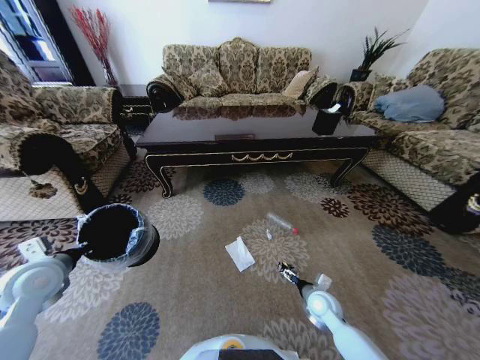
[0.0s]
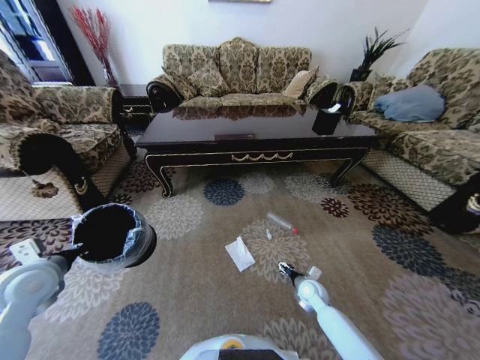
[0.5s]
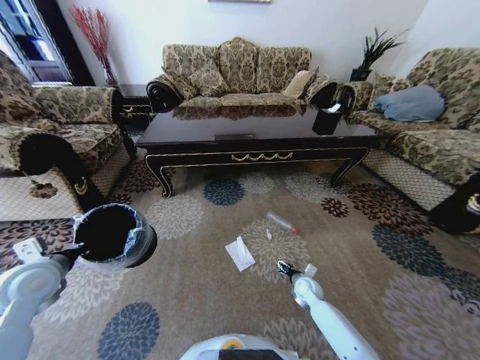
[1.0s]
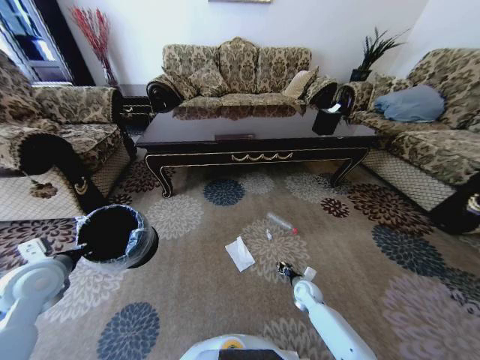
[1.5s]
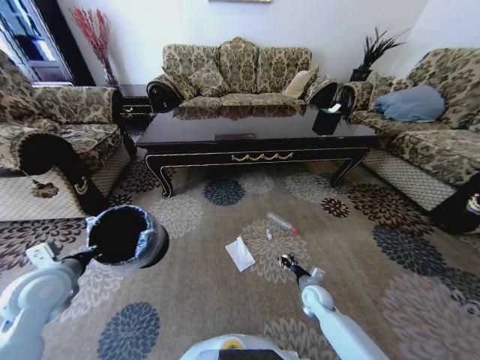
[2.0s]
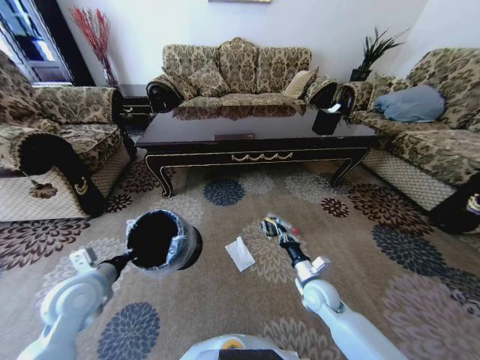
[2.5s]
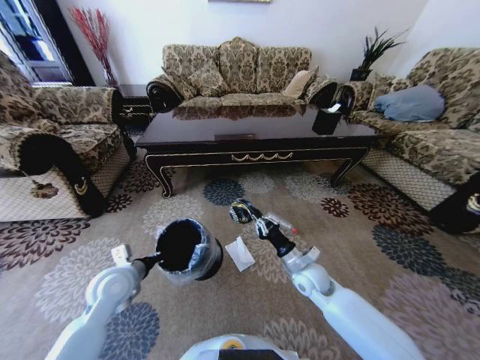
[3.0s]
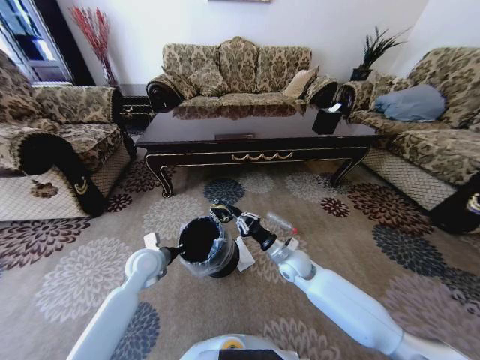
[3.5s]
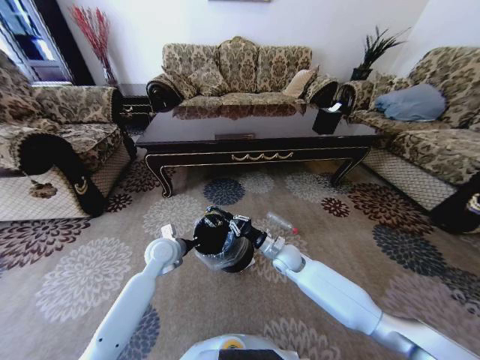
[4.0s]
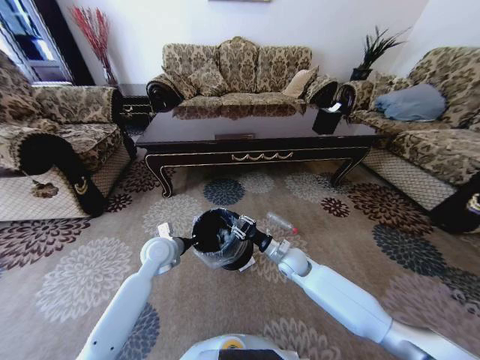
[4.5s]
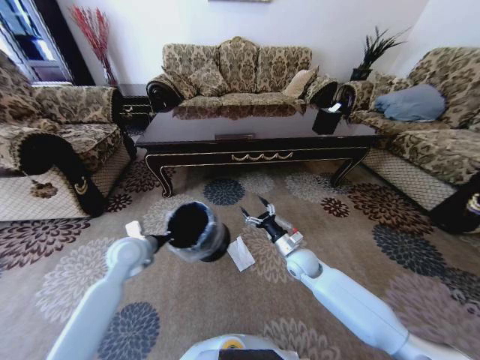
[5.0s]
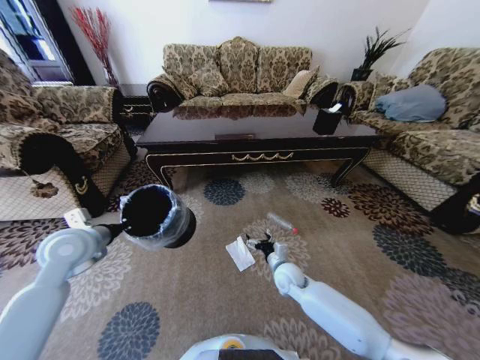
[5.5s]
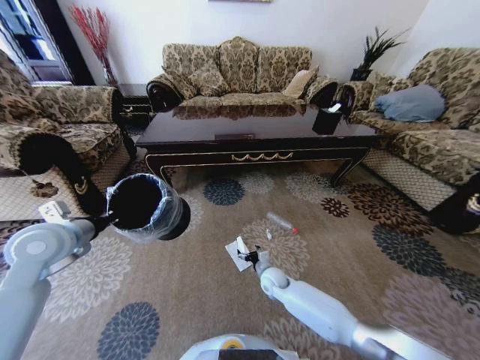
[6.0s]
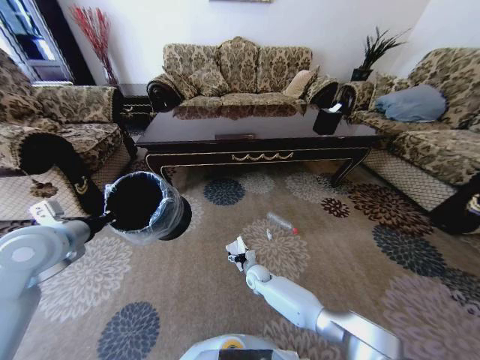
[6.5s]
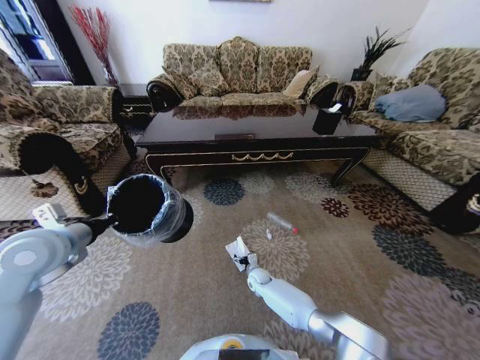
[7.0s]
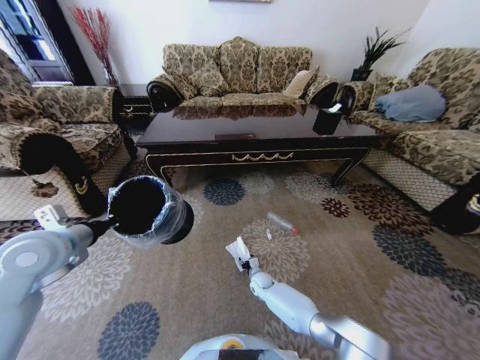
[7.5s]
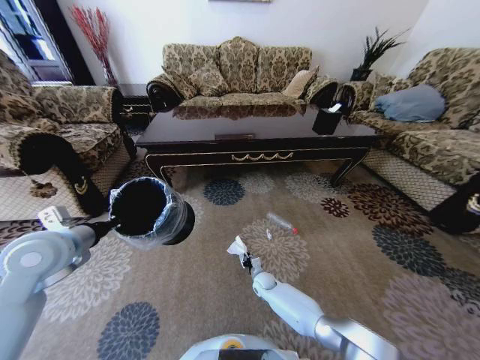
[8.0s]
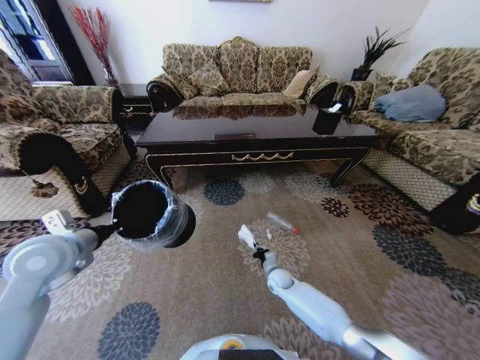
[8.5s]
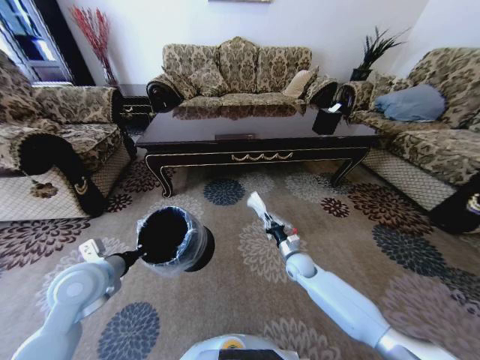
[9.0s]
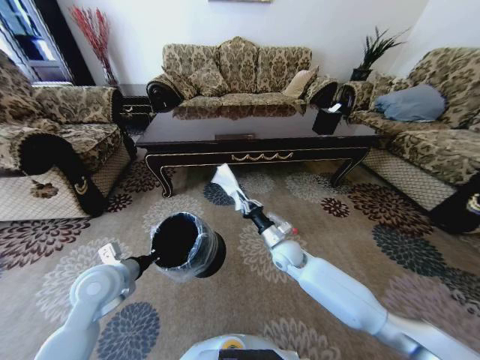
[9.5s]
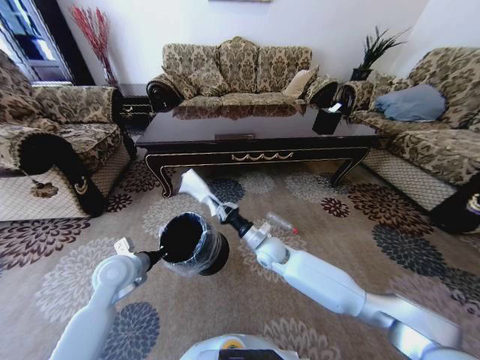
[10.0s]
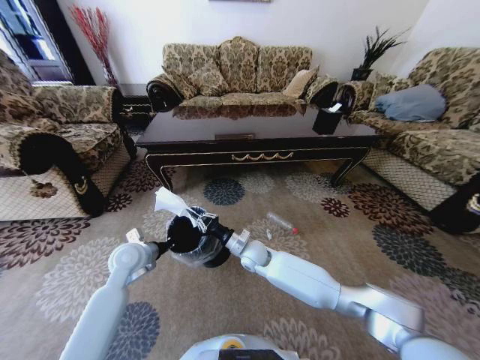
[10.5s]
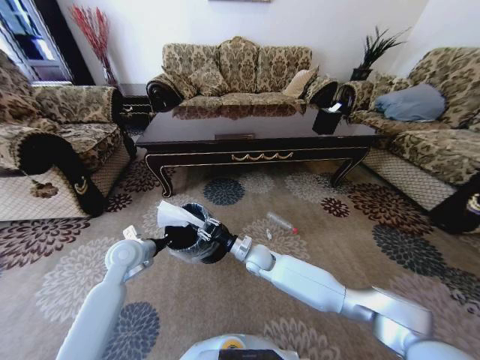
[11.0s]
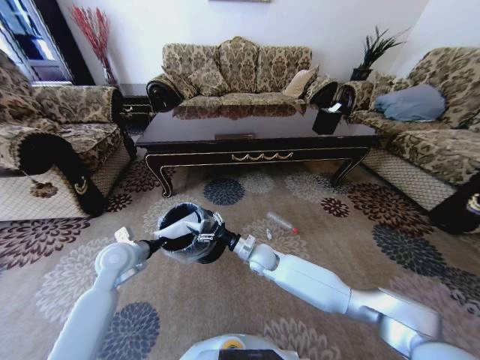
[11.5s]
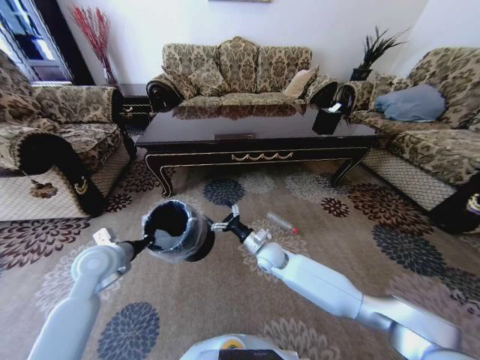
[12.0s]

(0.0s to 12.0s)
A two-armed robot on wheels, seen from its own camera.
Task of the whole recording: Move to the front of the table and pick up the trash from the floor, then place it into the trash bin.
0.0s - 2.0s: The right gripper travels downward by about 5 cm, and closes.
2.0s - 4.0s: The right gripper goes roughly 20 cm upward, to the left and forward; the left gripper travels to the right, forward and downward by some 25 cm.
4.0s - 6.0s: The right gripper goes approximately 10 cm downward, and opens its fingers. Meanwhile the left gripper heads to the left, upward and backward, covering roughly 25 cm.
6.0s - 8.0s: The right gripper moves downward, about 10 cm, and closes up.
8.0s - 10.0s: The right gripper moves upward, some 25 cm, while the left gripper heads downward and to the right, covering roughly 15 cm.
10.0s - 12.0s: The left gripper changes place by roughly 5 cm; the right gripper opens up.

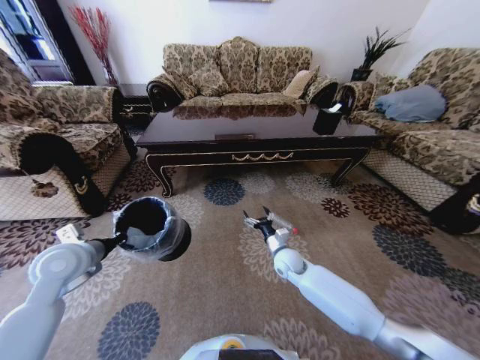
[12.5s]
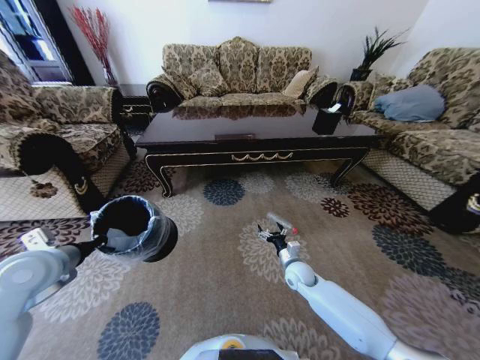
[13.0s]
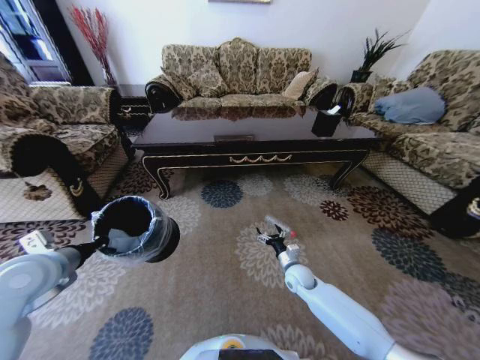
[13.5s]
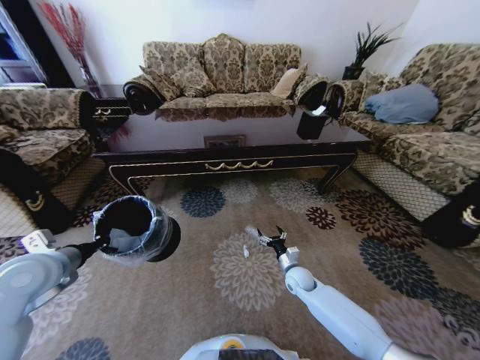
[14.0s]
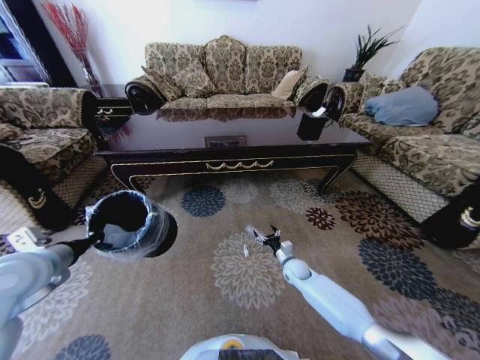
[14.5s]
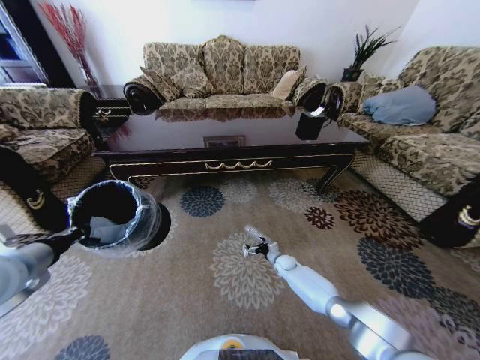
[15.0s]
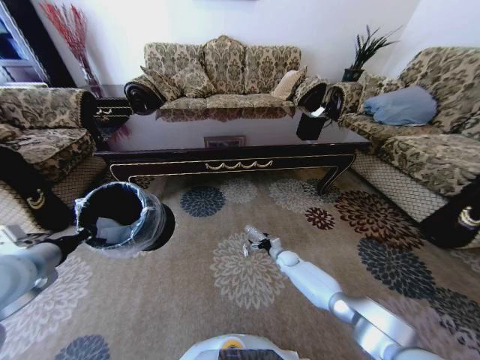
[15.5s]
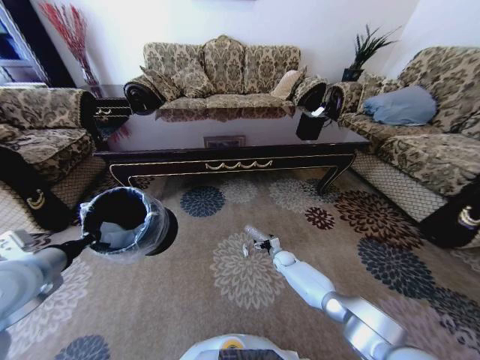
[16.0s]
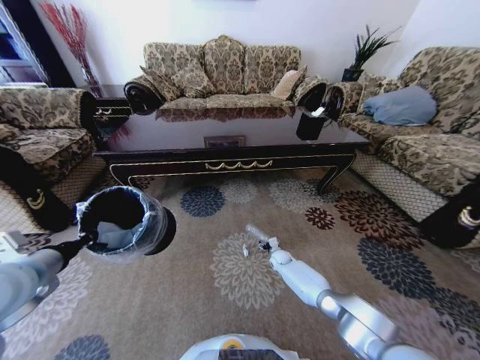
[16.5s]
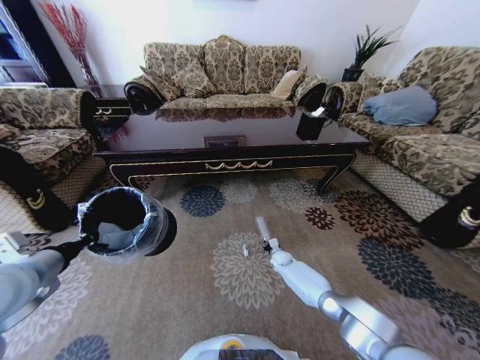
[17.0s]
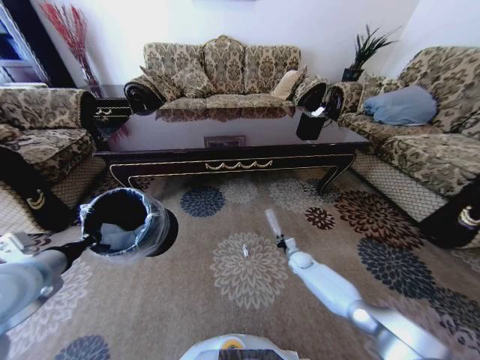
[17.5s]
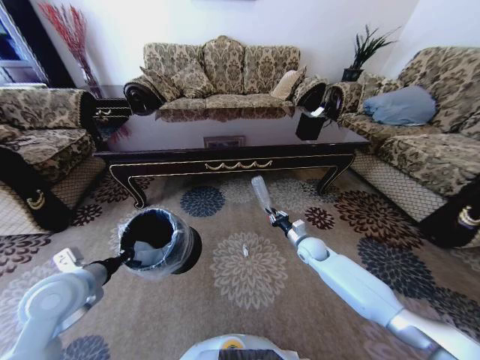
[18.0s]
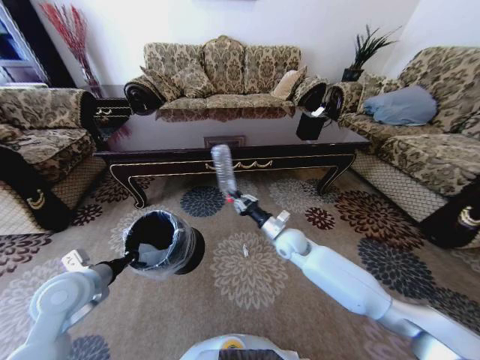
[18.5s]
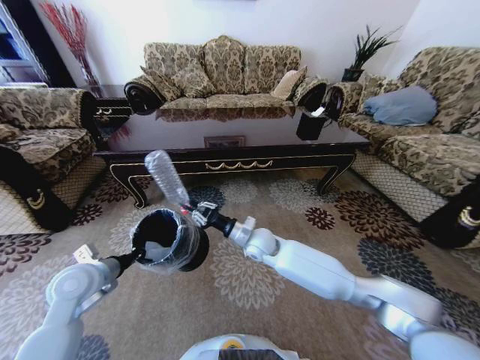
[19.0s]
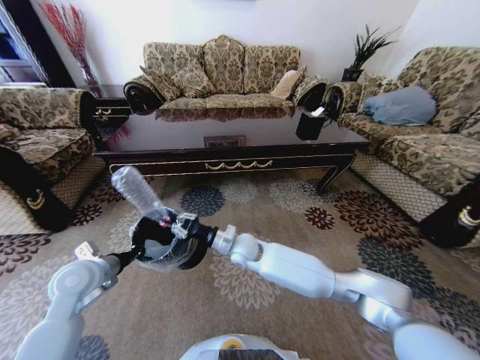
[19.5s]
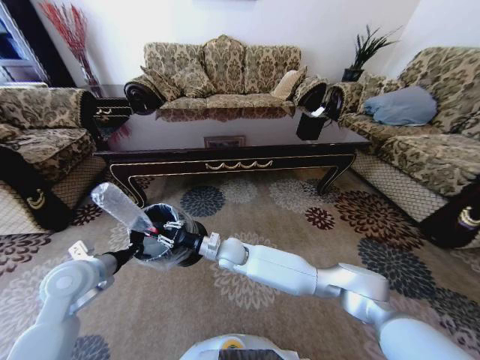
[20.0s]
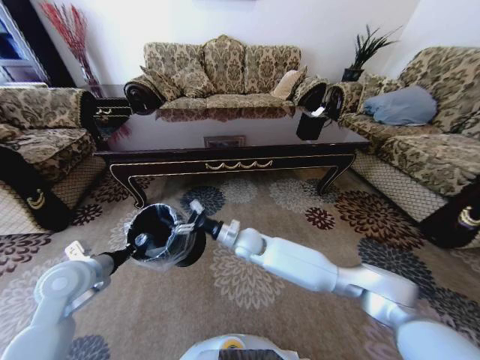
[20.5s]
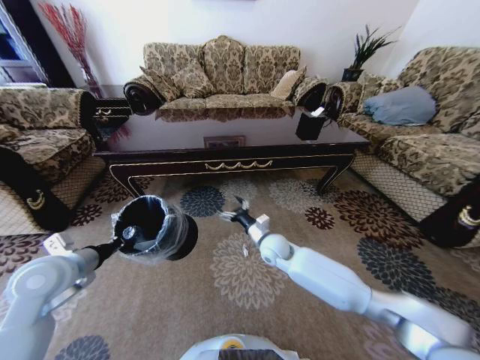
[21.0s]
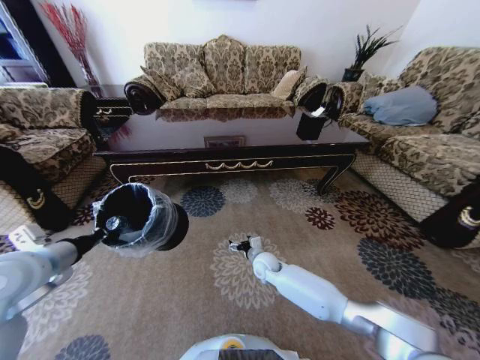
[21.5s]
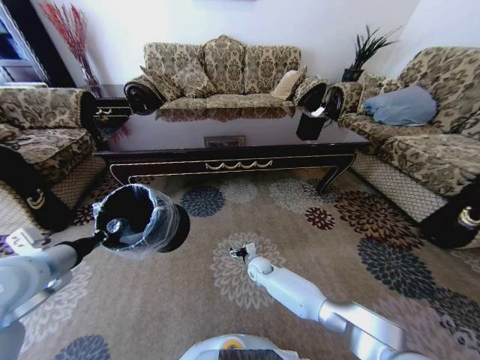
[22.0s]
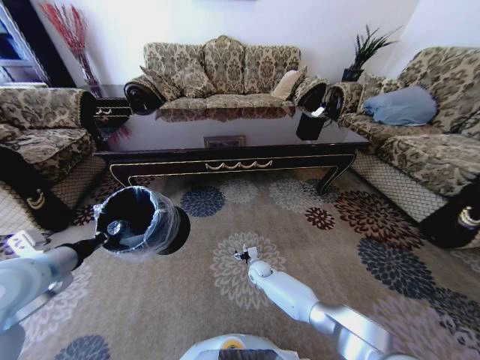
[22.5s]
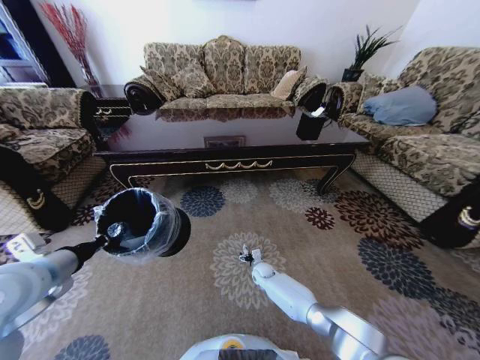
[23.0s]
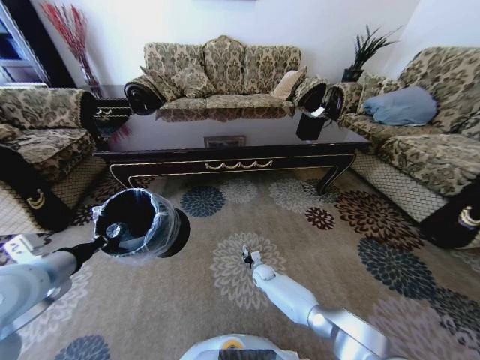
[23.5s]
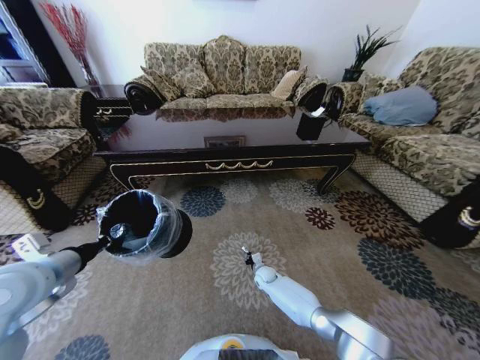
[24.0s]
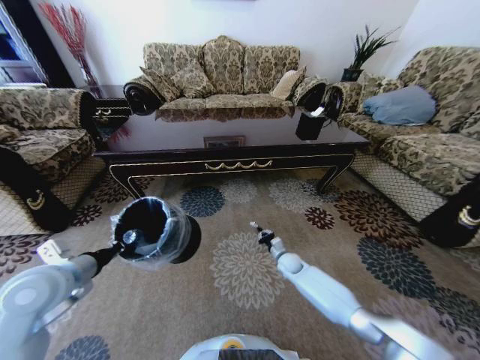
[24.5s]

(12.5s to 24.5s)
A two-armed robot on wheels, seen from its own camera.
Task of the whole recording: Move to the front of the table and pick up the trash from the floor, then place it into the trash bin.
12.5s - 14.5s: The right gripper heads downward and to the right, covering approximately 10 cm, while the left gripper shifts by about 5 cm.
14.5s - 16.5s: The right gripper moves forward and downward, approximately 10 cm.
16.5s - 18.5s: The left gripper goes about 10 cm downward; the right gripper moves upward, about 25 cm, and closes its fingers.
18.5s - 20.5s: The right gripper is displaced to the left by roughly 15 cm, and opens its fingers.
20.5s - 22.5s: The left gripper is displaced upward by roughly 10 cm, while the right gripper is displaced downward by approximately 25 cm.
22.5s - 24.5s: The right gripper travels to the right and upward by about 15 cm, and closes up.

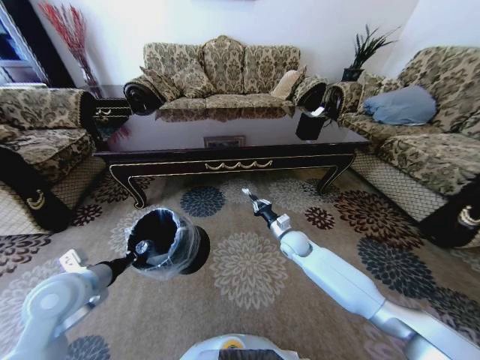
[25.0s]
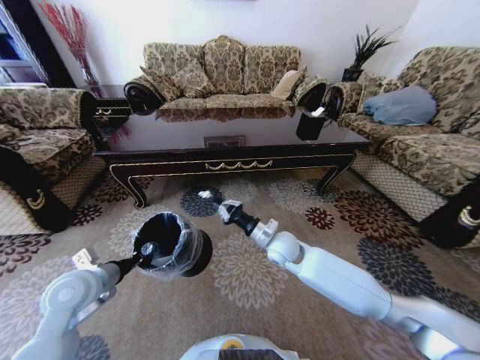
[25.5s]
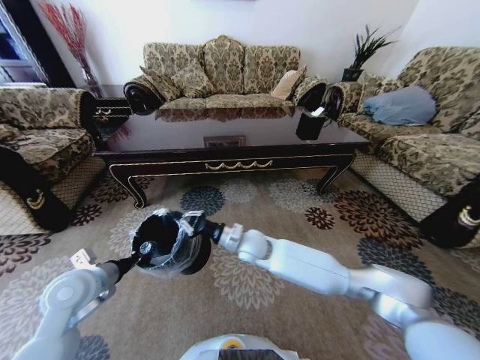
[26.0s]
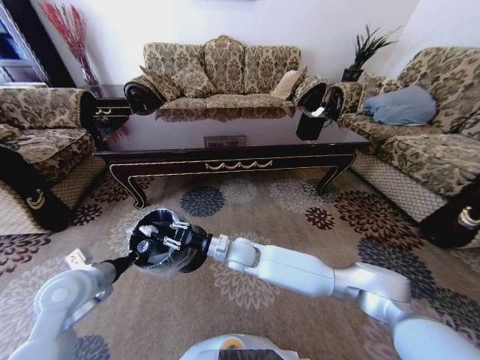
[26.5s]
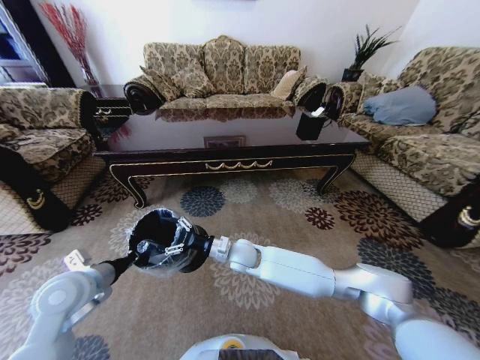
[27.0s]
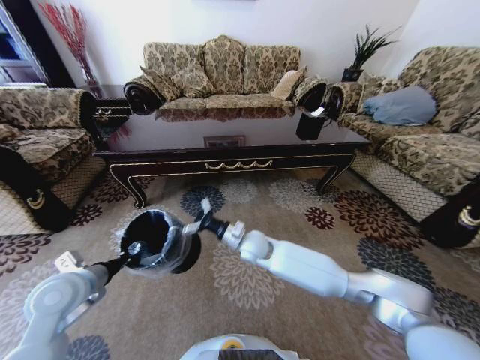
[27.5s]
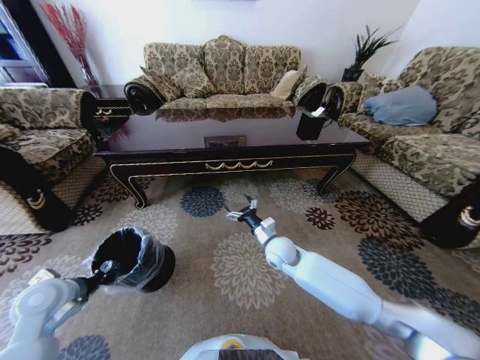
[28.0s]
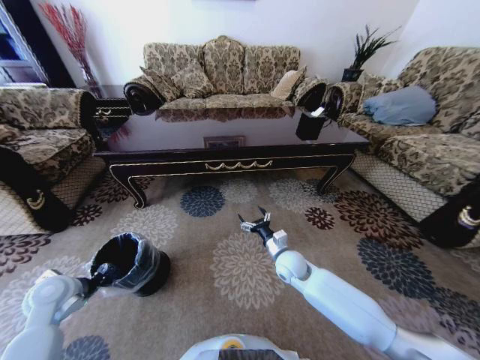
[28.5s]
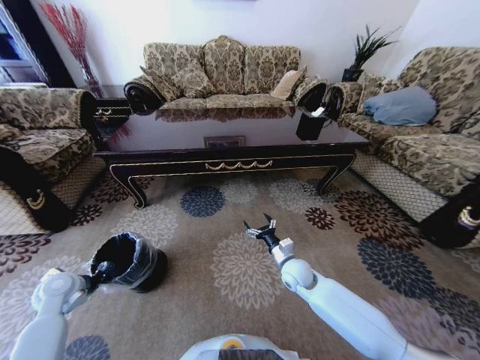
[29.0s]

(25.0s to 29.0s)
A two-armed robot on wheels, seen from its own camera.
Task of the whole recording: Move to the front of the table and pick up the trash from the floor, then place it into the trash bin.
25.0s - 27.0s: The right gripper shifts approximately 20 cm to the left, and opens.
27.0s - 29.0s: The left gripper travels to the left and downward by approximately 15 cm. The right gripper travels to the right by some 20 cm.
